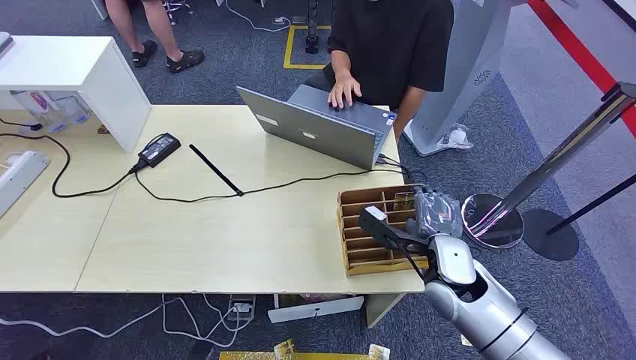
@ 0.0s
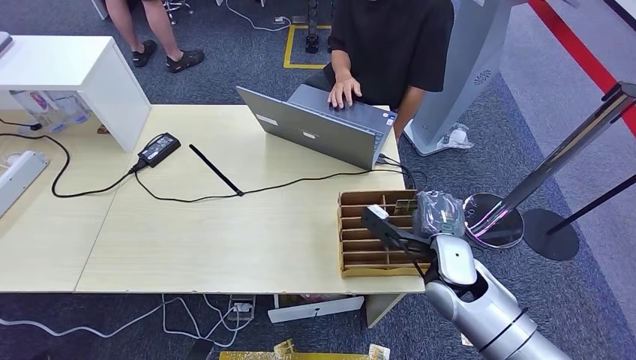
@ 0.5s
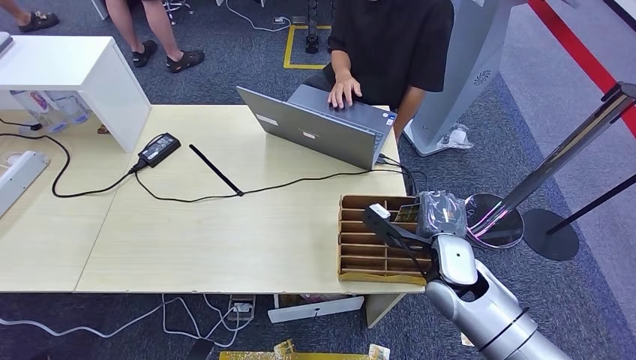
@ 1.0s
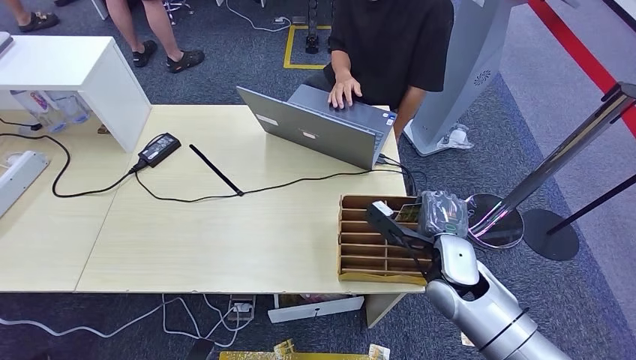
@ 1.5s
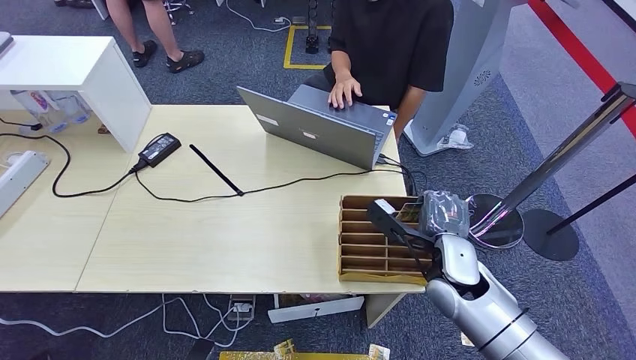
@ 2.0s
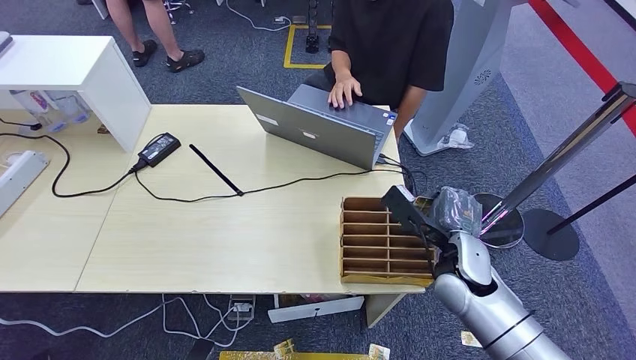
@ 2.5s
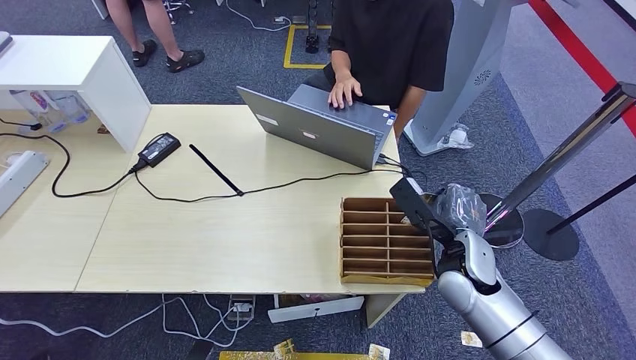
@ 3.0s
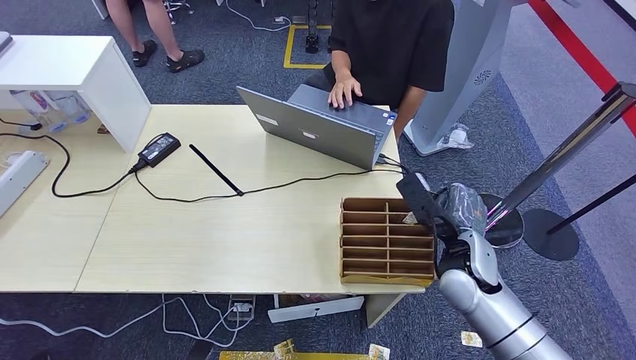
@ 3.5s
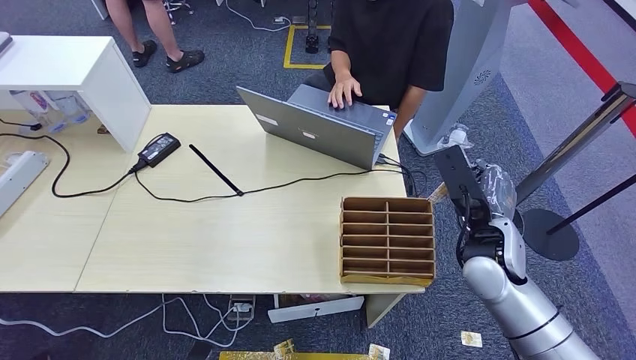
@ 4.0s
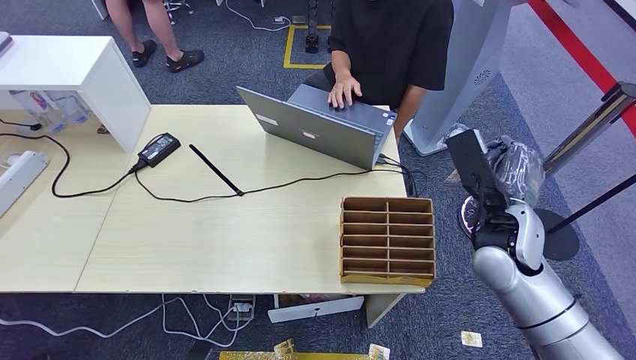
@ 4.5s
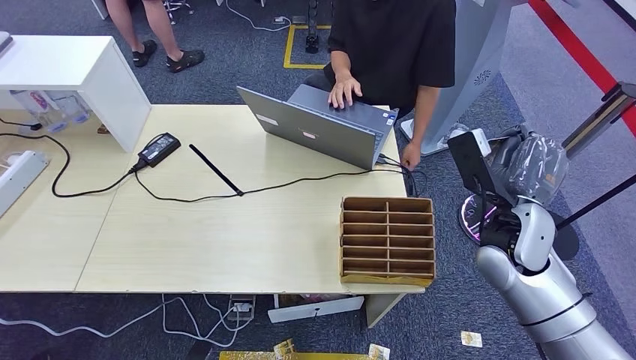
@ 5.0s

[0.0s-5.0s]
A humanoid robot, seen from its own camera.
Step, 0.0s to 4.0s: Pick up the key card from the card box.
Step, 4.5s to 5.0s: Hand the key card to the target.
2.5s to 5.0s: The right hand is displaced upward by some 10 cm.

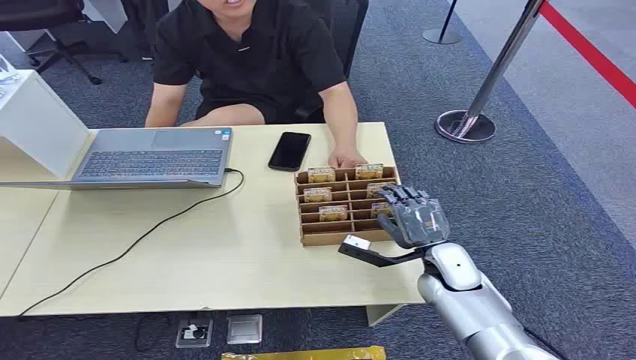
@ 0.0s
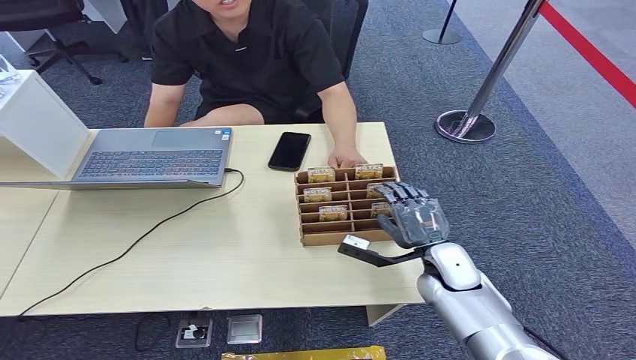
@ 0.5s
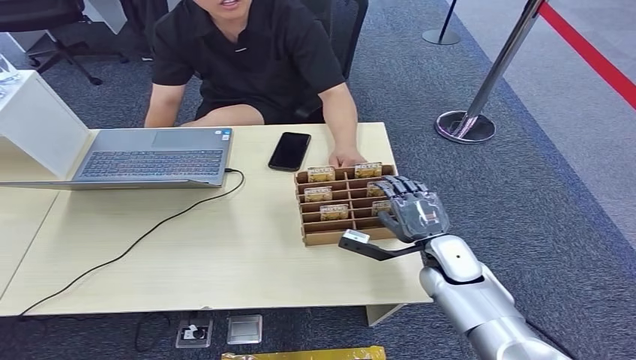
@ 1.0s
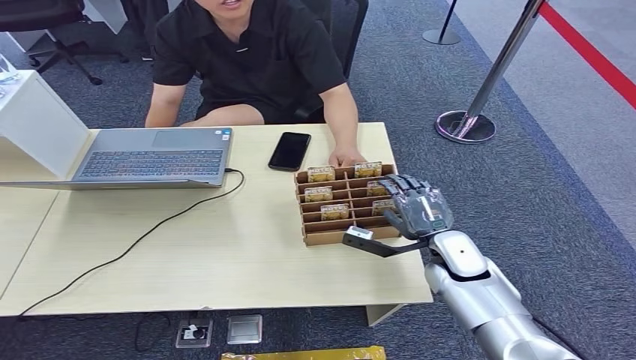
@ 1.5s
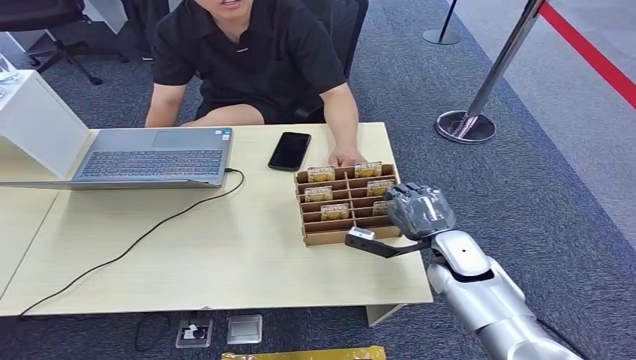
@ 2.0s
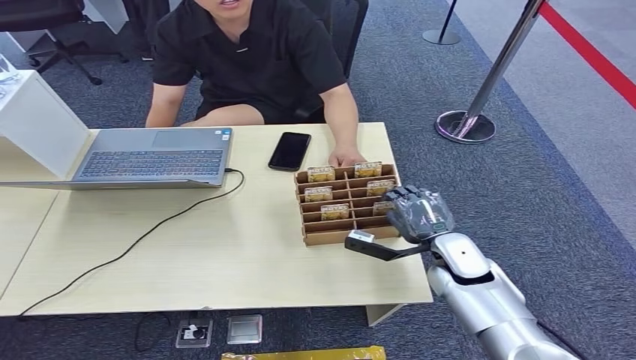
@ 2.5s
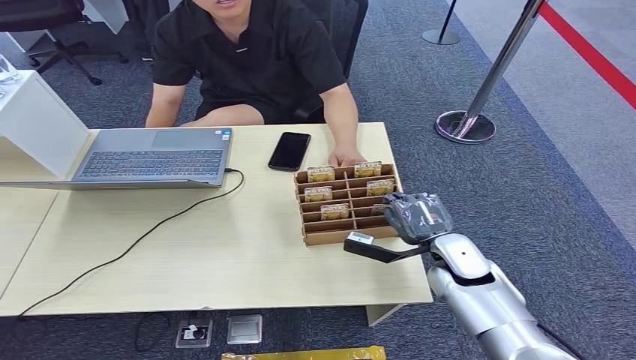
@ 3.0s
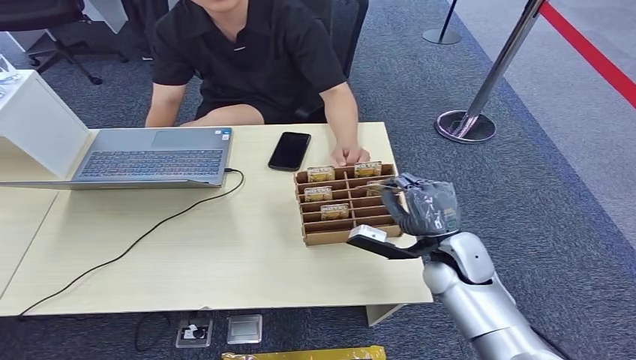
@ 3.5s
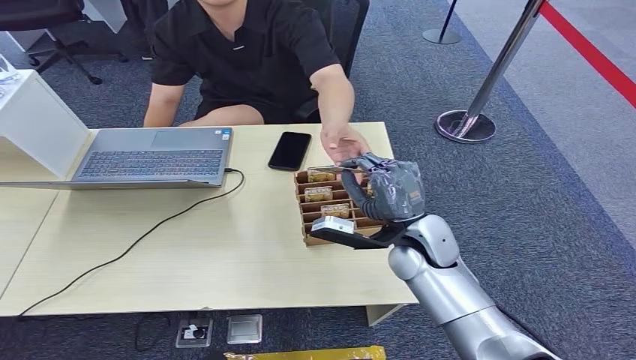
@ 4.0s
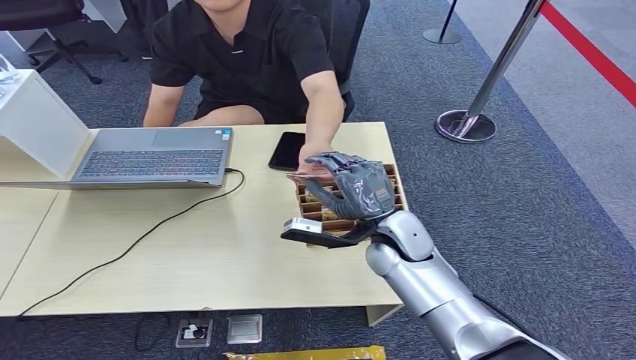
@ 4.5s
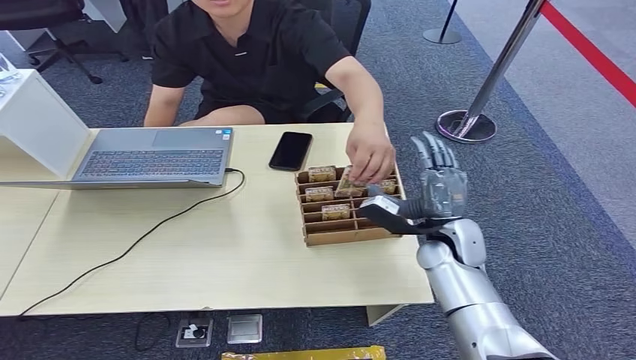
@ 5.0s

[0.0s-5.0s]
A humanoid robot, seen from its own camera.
Step, 0.0s to 3.5s: Pick up the key card from the card box.
Step, 4.0s to 5.0s: Hand the key card to the target.
2.5s to 5.0s: The right hand goes to the left and returns, approximately 10 cm each way.
